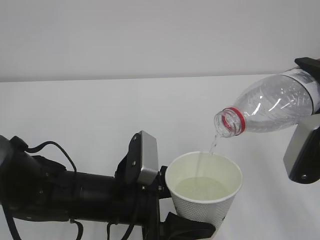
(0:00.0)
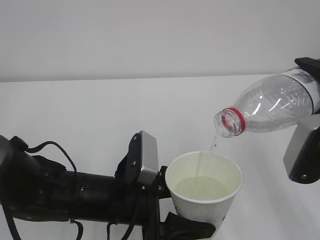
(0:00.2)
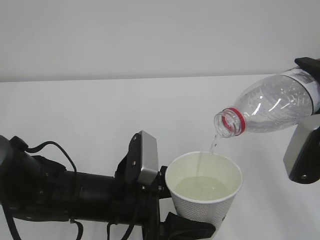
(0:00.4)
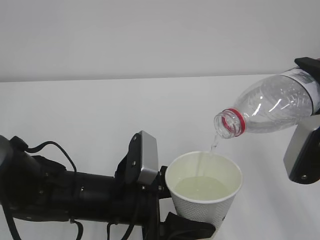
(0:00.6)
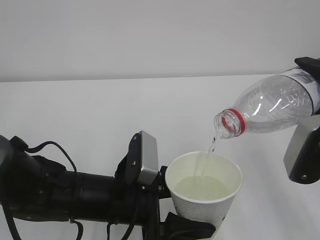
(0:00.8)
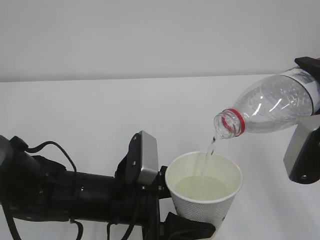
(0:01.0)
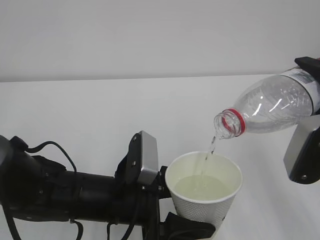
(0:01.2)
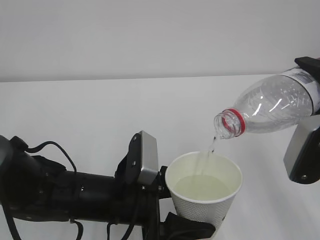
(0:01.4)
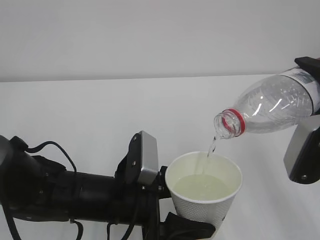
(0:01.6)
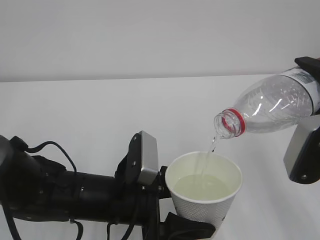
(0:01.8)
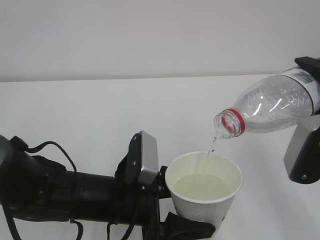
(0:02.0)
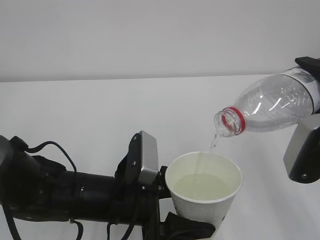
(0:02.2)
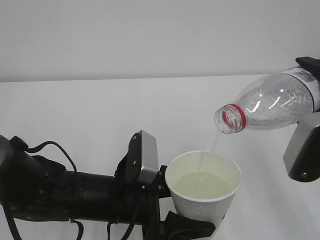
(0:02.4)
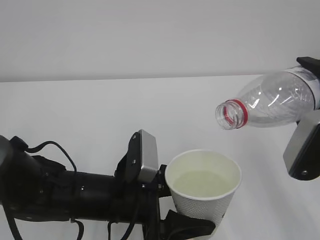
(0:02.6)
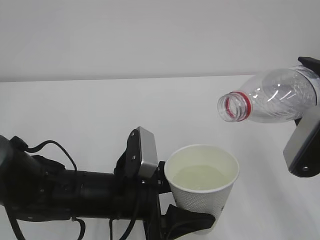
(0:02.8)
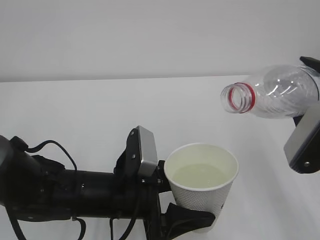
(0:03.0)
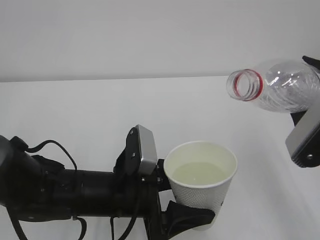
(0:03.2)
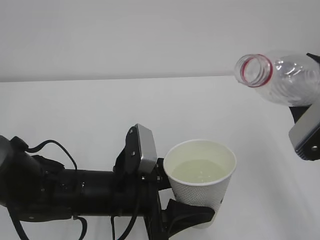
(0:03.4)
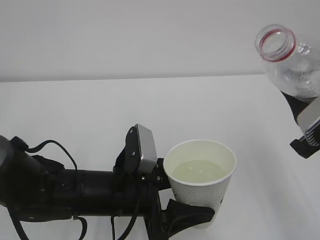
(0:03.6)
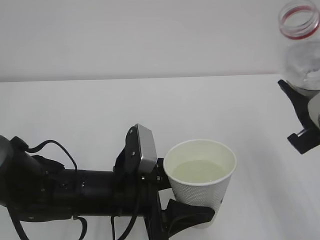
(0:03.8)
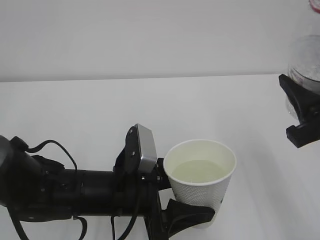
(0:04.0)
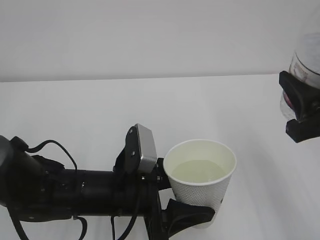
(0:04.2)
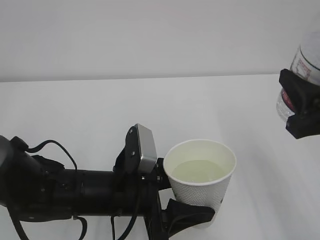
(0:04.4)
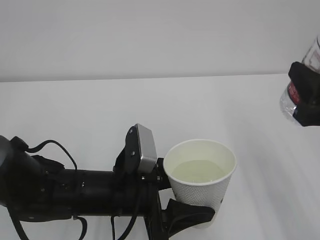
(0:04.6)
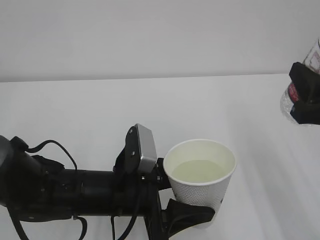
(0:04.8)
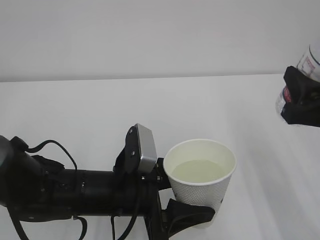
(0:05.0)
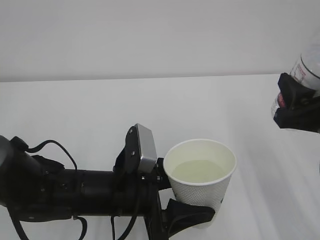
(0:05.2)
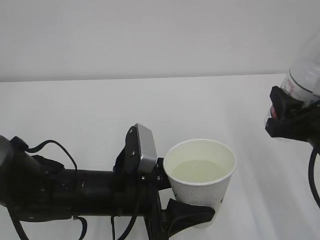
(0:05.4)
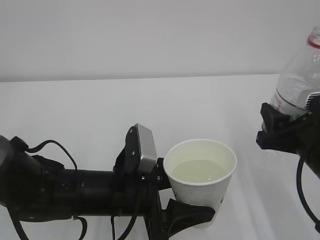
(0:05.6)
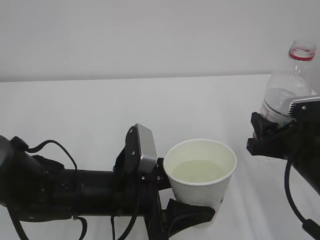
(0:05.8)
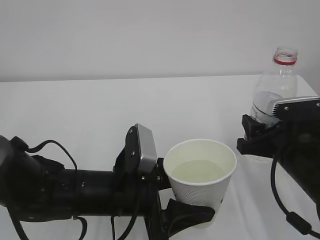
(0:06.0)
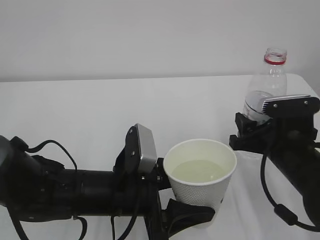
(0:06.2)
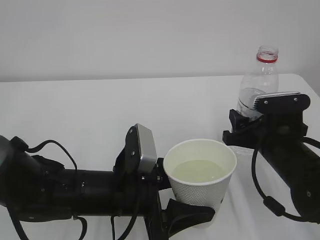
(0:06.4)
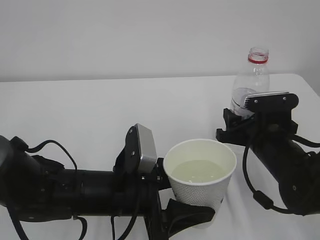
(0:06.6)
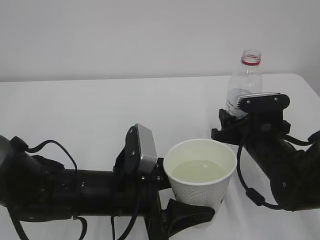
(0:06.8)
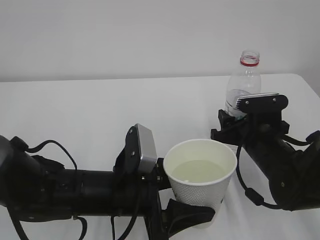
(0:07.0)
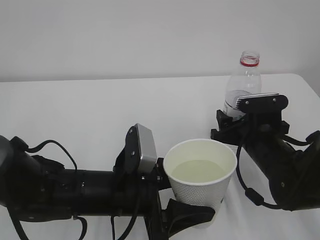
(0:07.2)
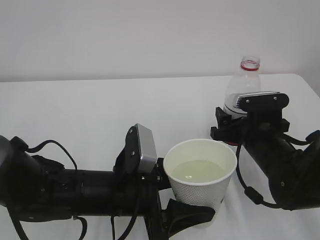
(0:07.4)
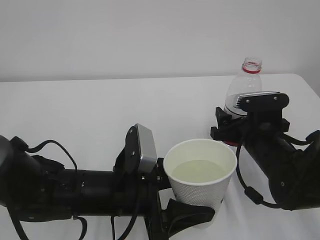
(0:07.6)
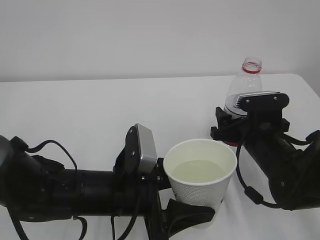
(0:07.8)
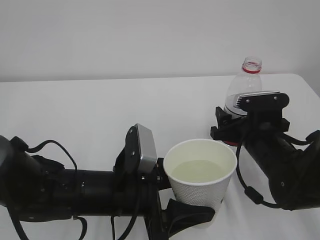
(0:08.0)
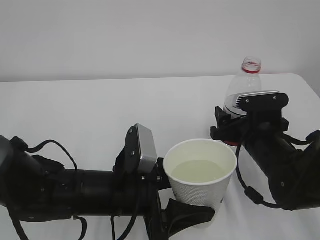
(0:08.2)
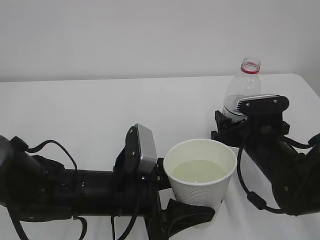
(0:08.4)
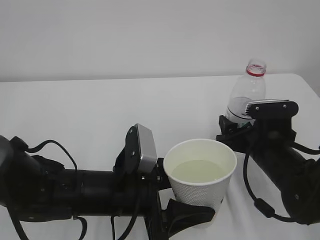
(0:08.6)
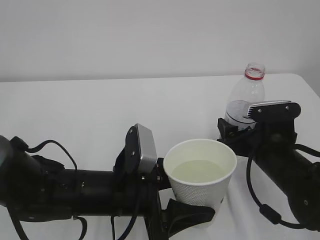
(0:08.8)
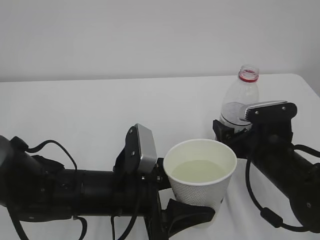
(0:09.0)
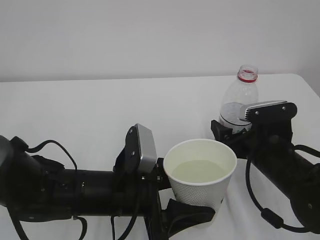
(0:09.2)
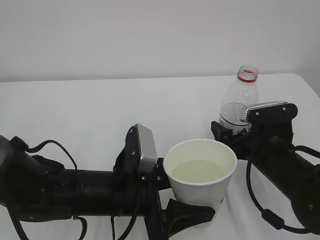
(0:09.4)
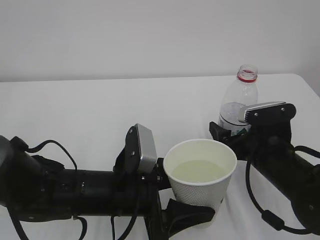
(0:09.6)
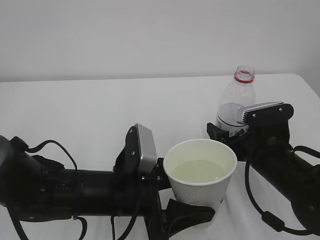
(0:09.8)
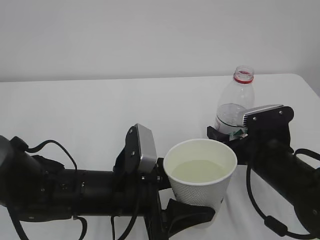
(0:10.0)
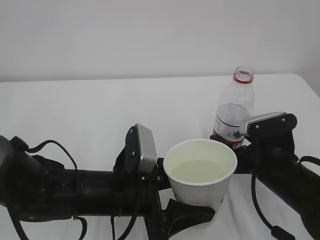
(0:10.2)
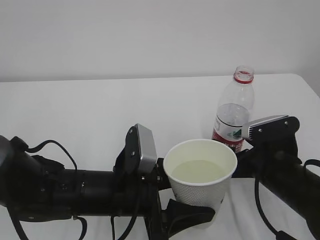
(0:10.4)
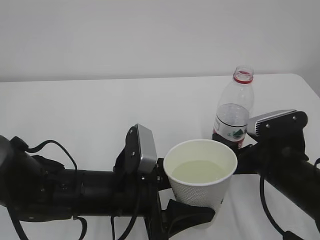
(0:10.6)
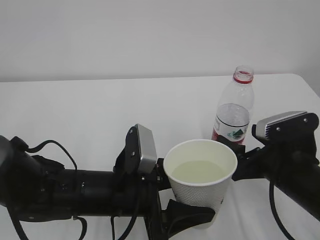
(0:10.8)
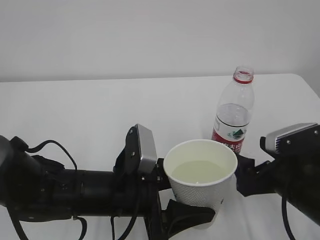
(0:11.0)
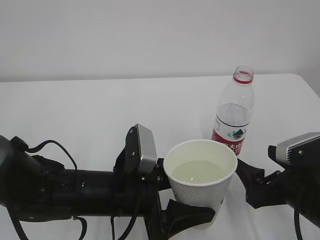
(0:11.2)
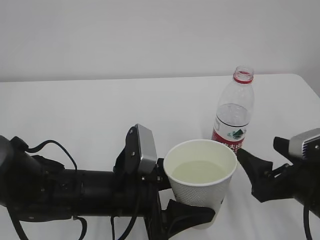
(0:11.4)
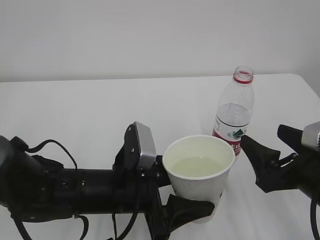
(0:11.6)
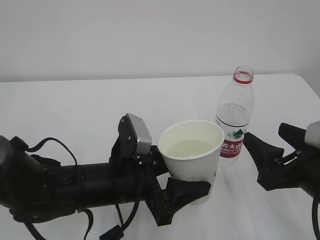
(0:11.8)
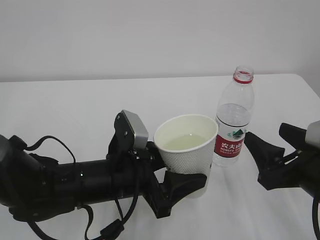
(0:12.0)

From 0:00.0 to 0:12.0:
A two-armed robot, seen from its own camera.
From 0:00.0 to 0:01.6: Both grippers stay put.
From 0:01.6 to 0:03.0: There are only small adjustments of the grippers.
From 0:04.4 to 0:06.0: The right gripper goes approximately 15 cm downward and forward.
From 0:06.0 to 0:07.6: The right gripper moves forward, about 5 cm, and opens up.
From 0:07.6 to 0:09.0: The grippers stay close to where they were, moving slightly.
From 0:09.0 to 0:10.4: The right gripper opens.
From 0:10.4 to 0:12.0: The right gripper heads backward and upward, covering some 10 cm, and closes up.

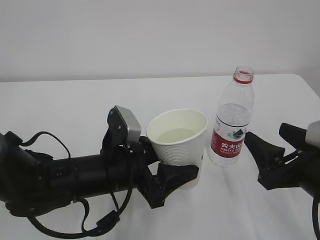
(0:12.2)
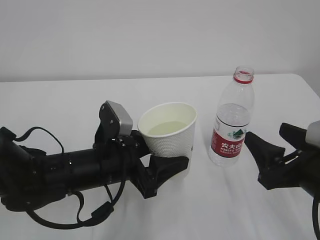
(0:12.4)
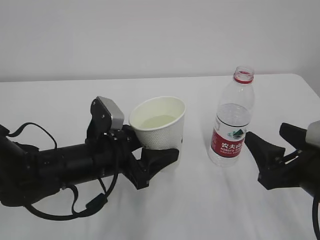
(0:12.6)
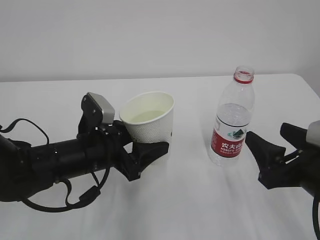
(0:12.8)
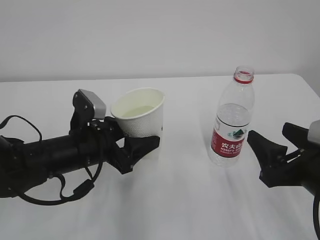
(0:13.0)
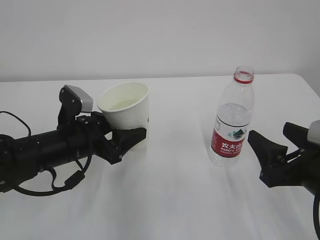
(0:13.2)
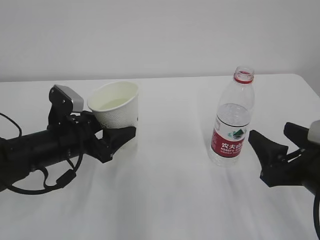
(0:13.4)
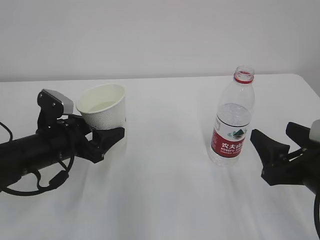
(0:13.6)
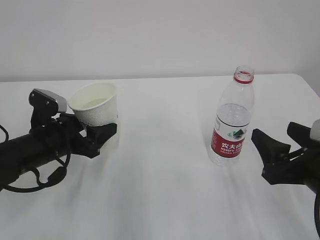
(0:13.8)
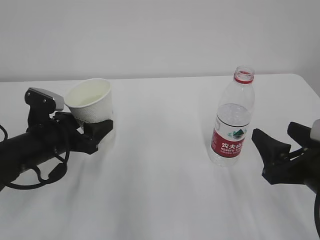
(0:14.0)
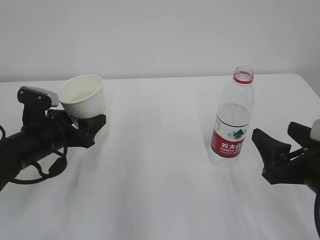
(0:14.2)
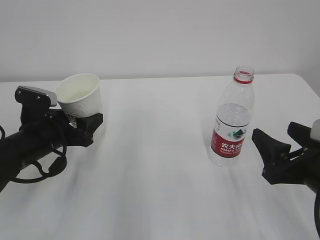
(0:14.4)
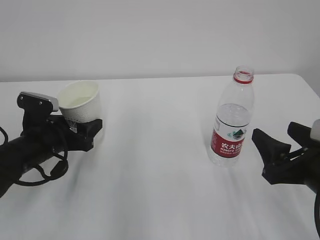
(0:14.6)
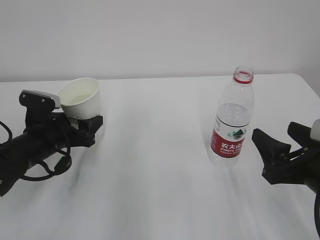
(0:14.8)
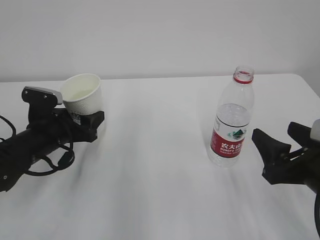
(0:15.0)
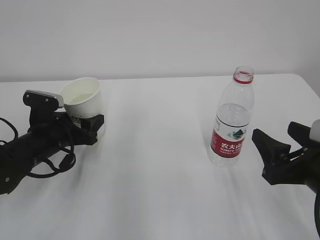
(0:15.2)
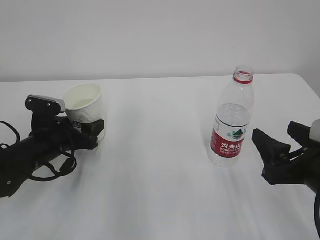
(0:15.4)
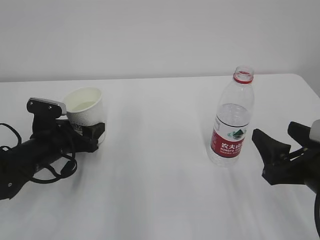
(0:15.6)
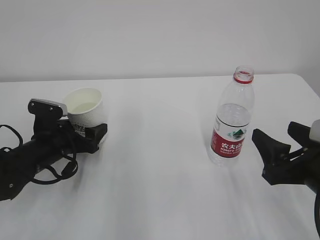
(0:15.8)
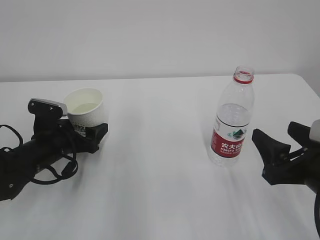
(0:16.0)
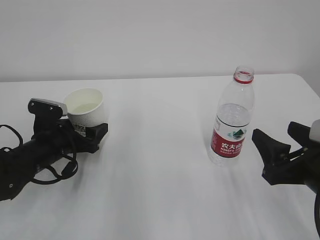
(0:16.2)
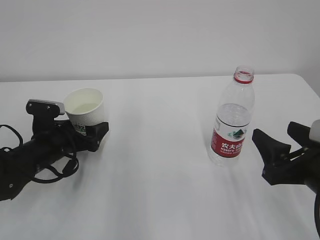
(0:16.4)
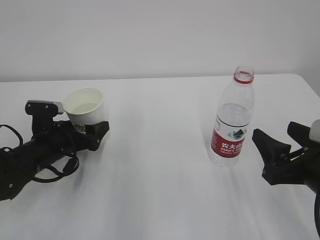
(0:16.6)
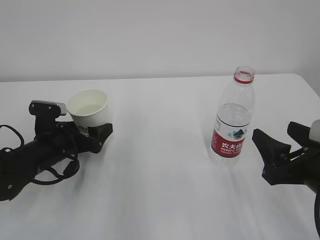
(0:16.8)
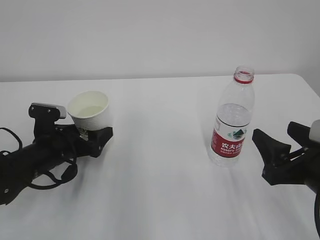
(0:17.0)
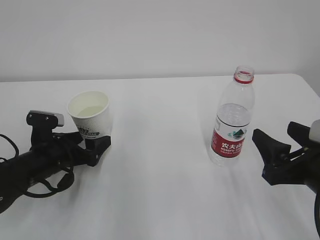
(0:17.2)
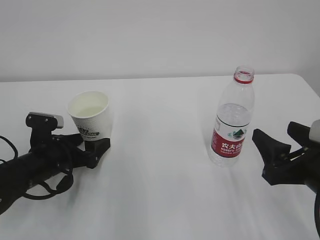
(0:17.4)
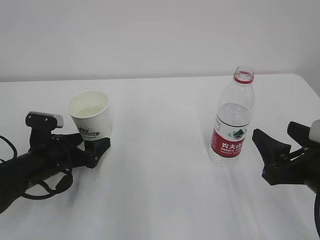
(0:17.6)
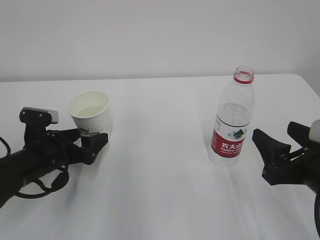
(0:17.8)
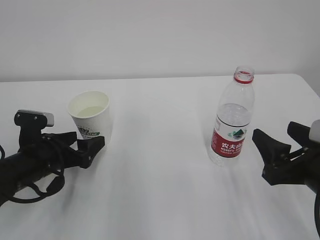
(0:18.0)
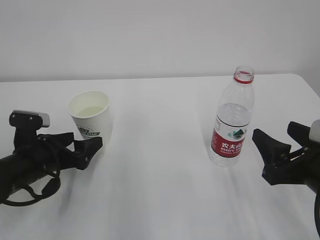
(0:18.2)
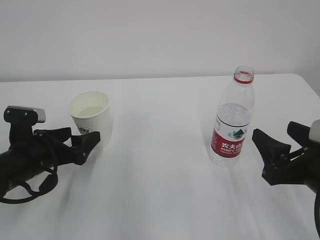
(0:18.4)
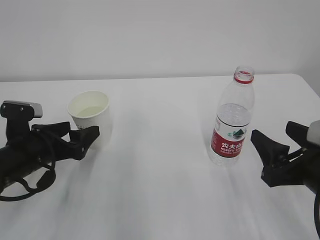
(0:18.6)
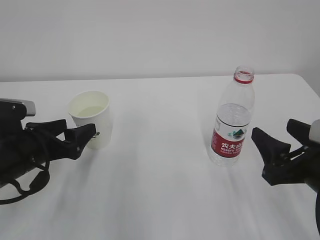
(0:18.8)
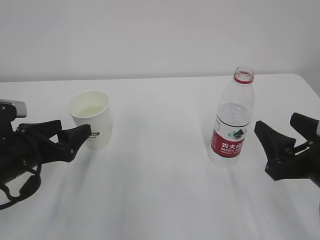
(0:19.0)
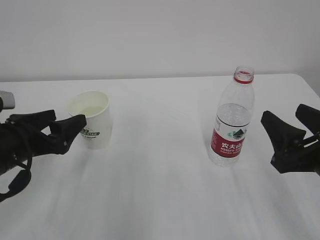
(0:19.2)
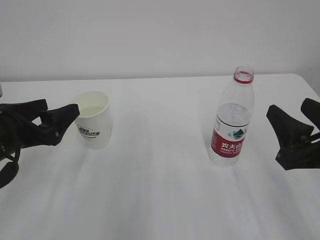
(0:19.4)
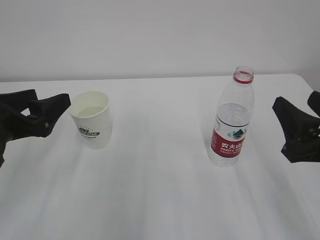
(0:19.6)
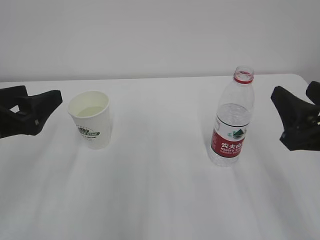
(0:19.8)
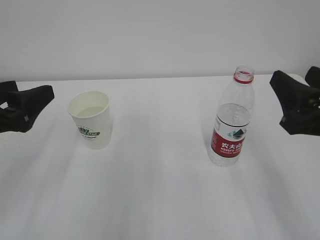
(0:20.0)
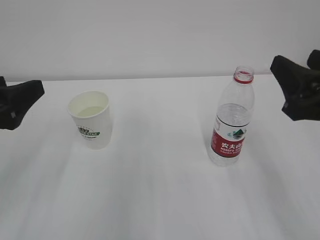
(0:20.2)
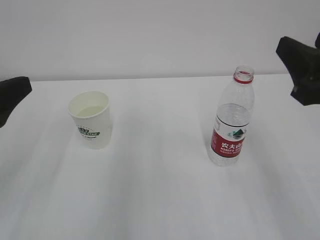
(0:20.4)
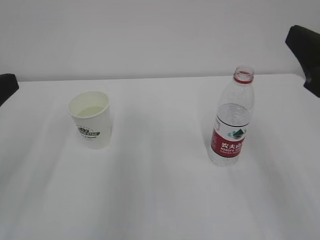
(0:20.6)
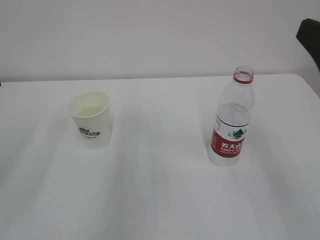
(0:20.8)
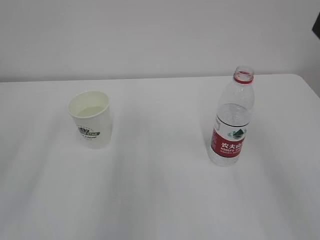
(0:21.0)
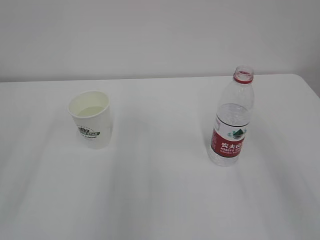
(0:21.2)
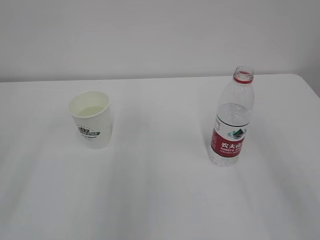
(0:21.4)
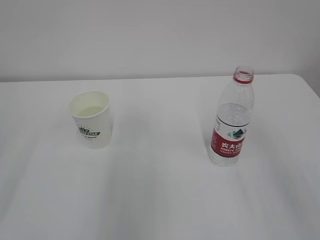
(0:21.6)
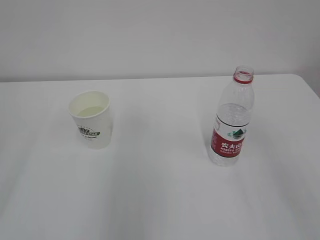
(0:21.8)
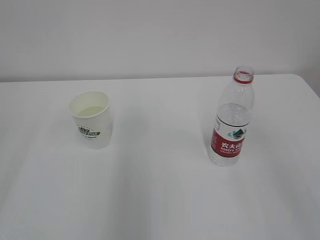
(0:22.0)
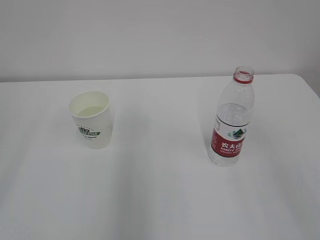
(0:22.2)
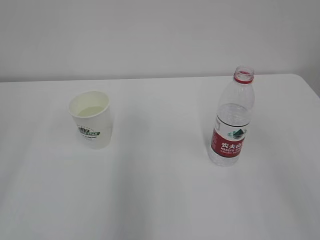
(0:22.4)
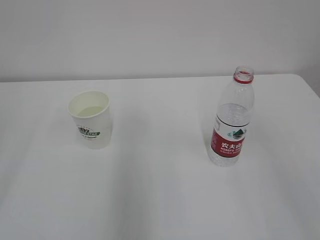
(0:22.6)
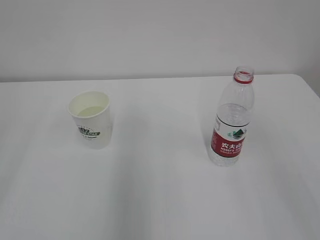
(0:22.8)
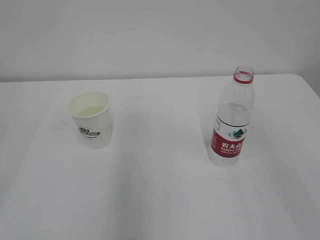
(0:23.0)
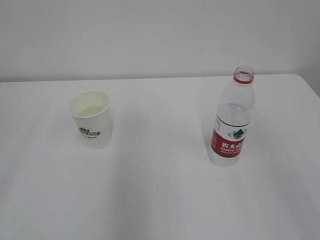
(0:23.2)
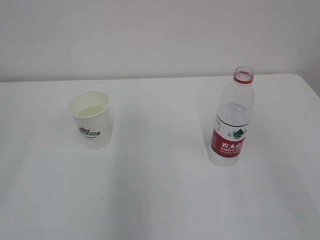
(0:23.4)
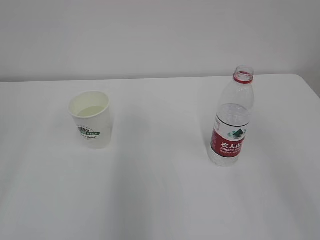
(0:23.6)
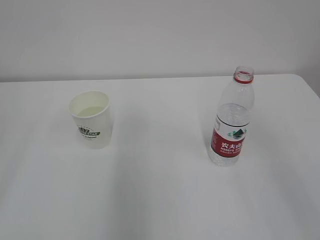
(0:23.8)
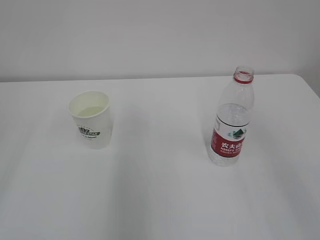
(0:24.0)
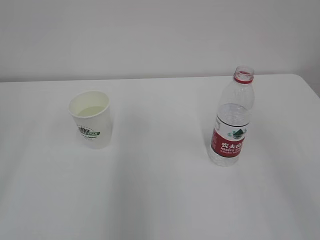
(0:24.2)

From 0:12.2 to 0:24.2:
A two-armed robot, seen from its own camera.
From 0:12.2 to 0:13.8: The left gripper goes some 15 cm to the left and forward.
From 0:13.8 to 0:15.2: The grippers move only a little.
From 0:15.2 to 0:16.6: The left gripper opens.
From 0:16.6 to 0:18.2: The left gripper ends up roughly 5 cm from where it was.
From 0:18.2 to 0:19.8: The right gripper moves upward, roughly 5 cm. The left gripper moves upward and backward, some 15 cm.
From 0:19.8 to 0:21.2: The right gripper heads upward, covering some 10 cm, while the left gripper is displaced backward and upward by roughly 15 cm.
